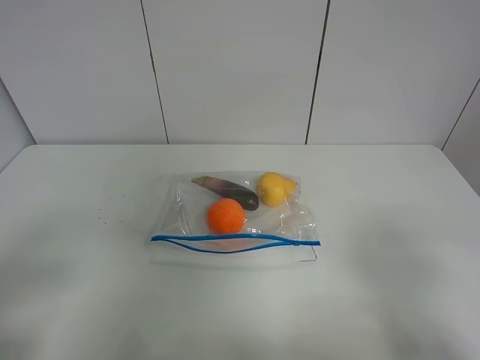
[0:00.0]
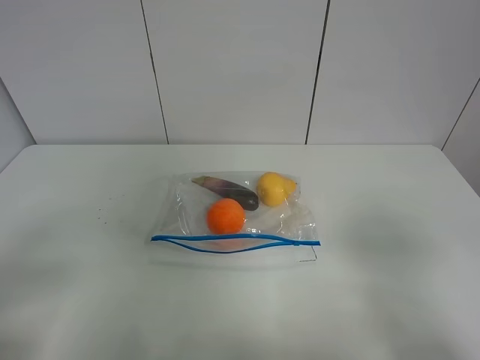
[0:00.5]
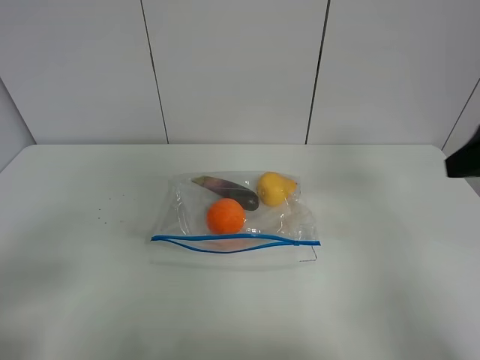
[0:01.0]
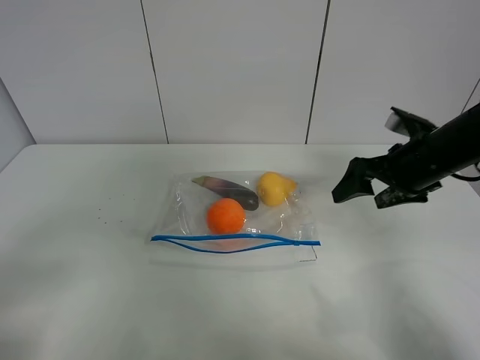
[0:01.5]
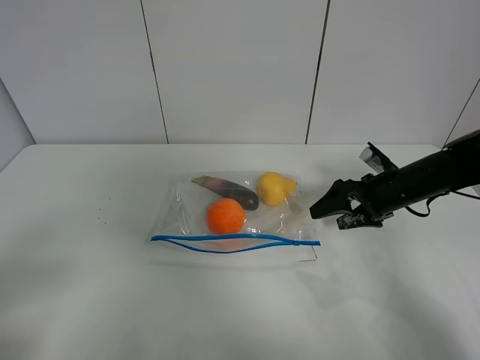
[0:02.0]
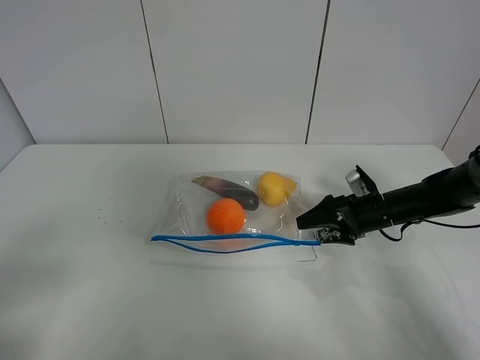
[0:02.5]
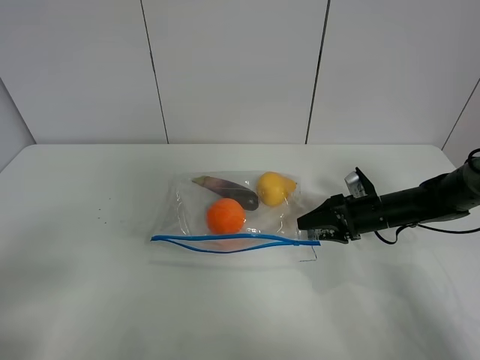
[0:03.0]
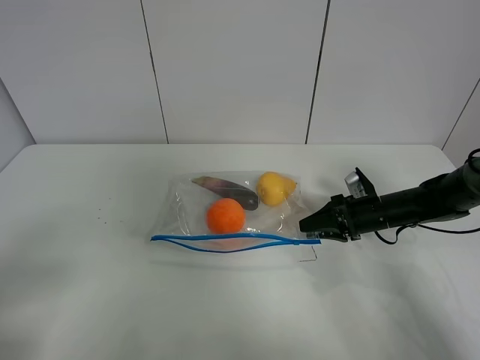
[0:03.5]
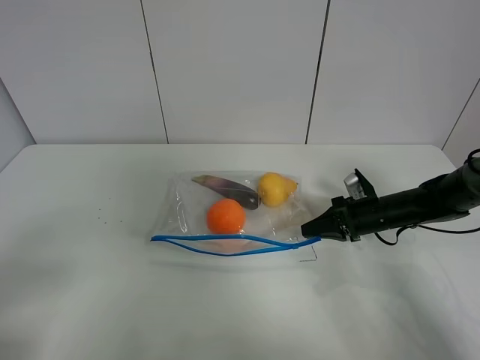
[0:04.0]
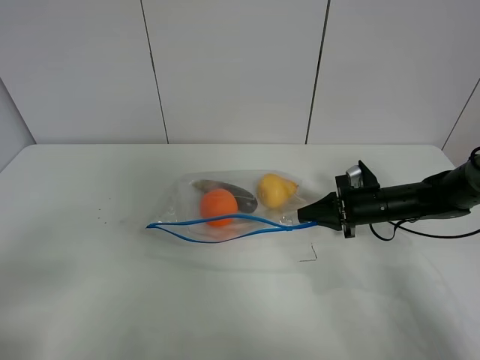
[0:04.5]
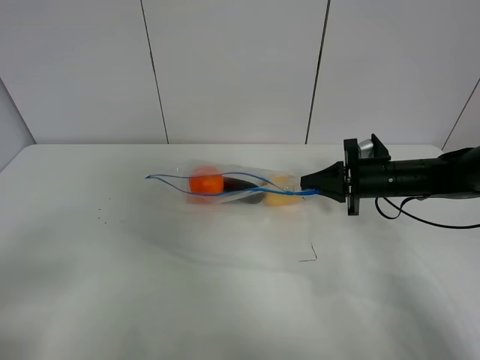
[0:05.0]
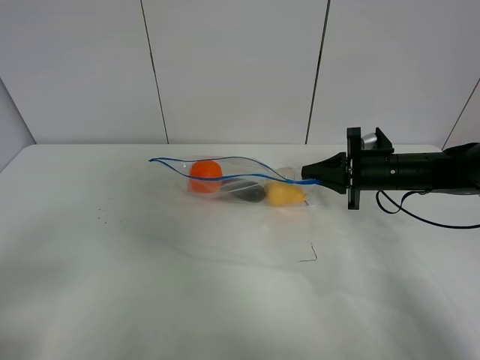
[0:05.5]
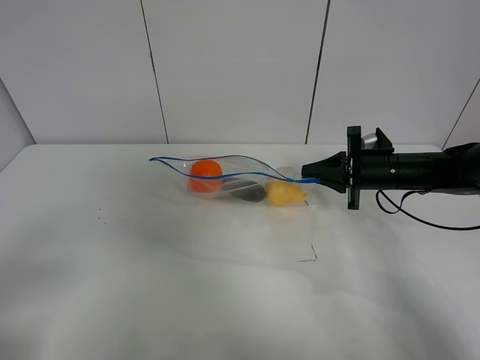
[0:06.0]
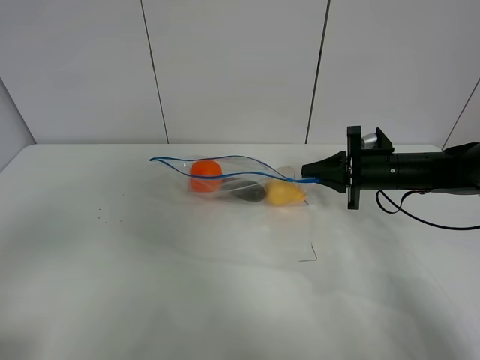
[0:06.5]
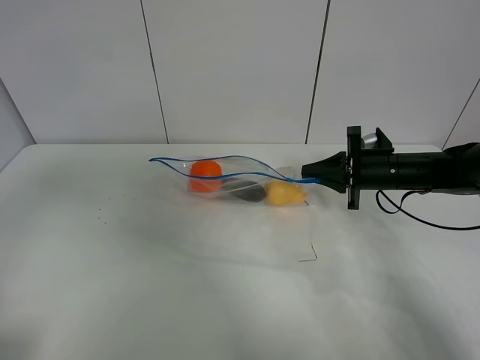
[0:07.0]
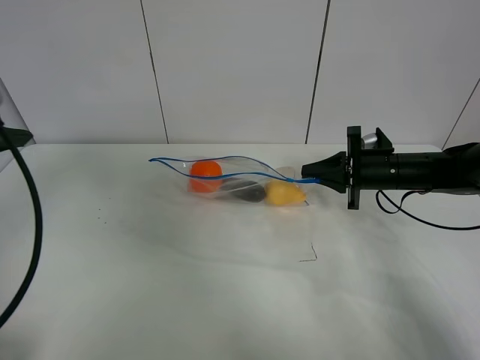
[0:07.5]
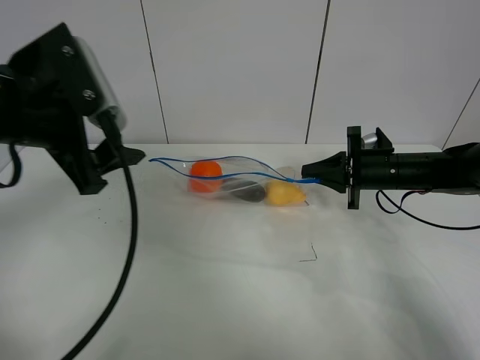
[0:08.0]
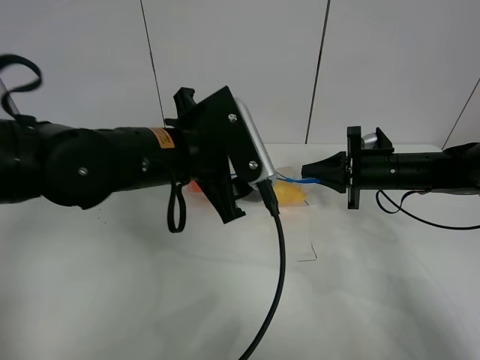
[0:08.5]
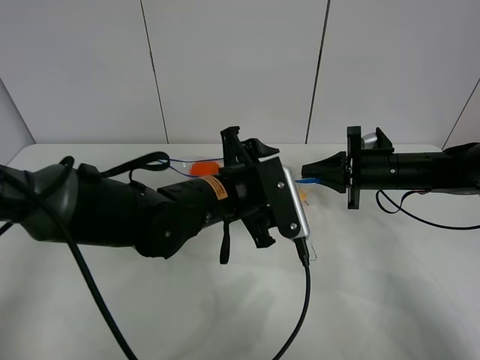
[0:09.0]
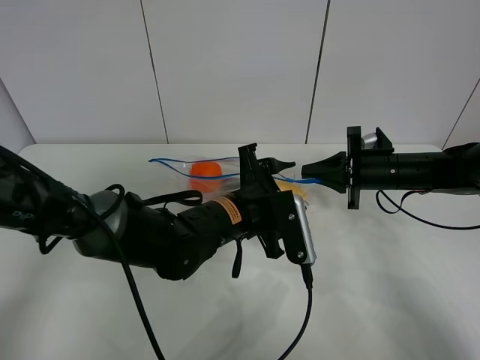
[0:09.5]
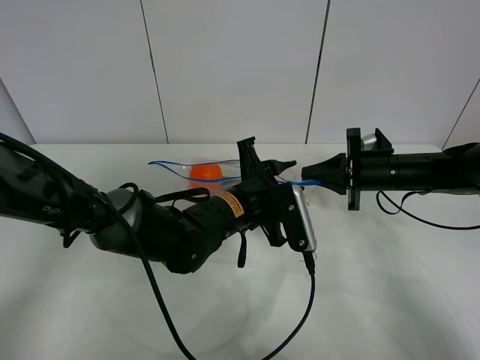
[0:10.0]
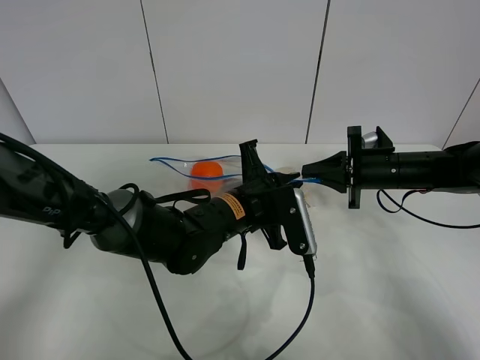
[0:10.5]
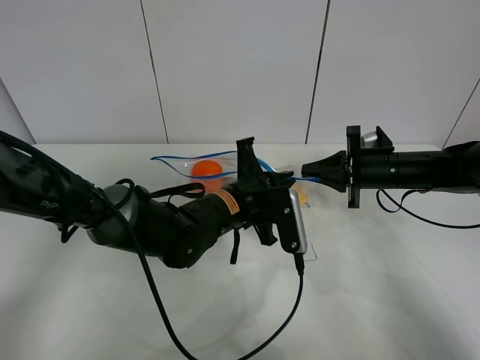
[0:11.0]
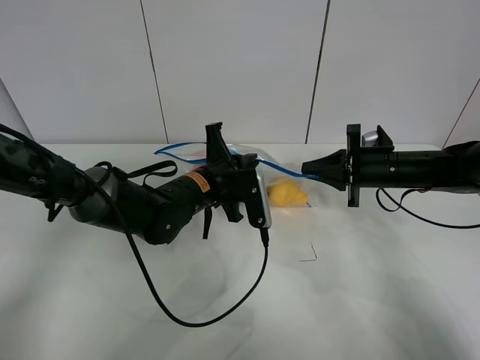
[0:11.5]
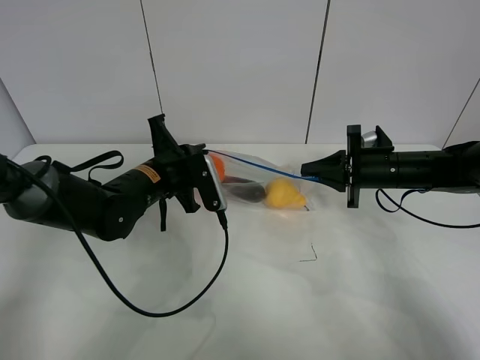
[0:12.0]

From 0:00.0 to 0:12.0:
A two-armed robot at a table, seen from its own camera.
Step, from 0:00.0 to 0:03.5: Grasp the fruit bag with right gripper.
Step, from 0:04.0 to 0:05.5: Lift the fruit bag with your right gripper.
From 0:00.0 to 0:02.0: The right gripper moves forward and downward, approximately 35 cm.
From 0:02.0 to 0:04.0: The right gripper goes some 5 cm downward, and closes.
From 0:04.0 to 0:06.0: The right gripper travels upward by approximately 10 cm.
From 0:06.0 to 0:08.0: The left gripper travels forward and to the right by approximately 25 cm.
From 0:08.0 to 0:10.0: The left gripper travels to the right and downward by about 25 cm, and closes.
From 0:10.0 to 0:12.0: The left gripper goes about 15 cm to the left, and closes its fingers.

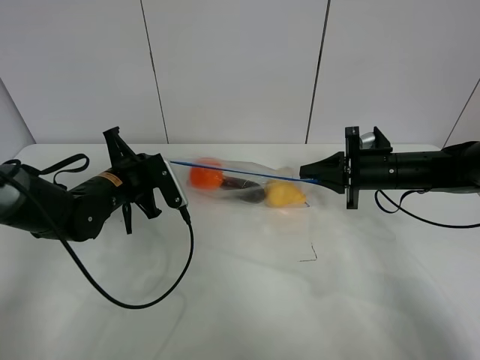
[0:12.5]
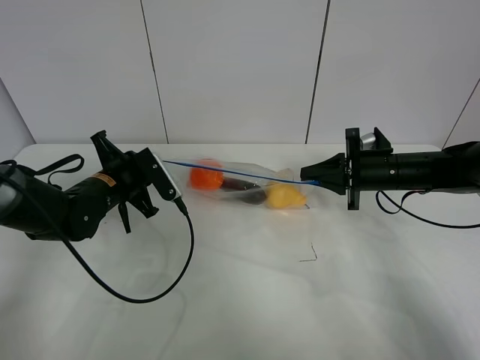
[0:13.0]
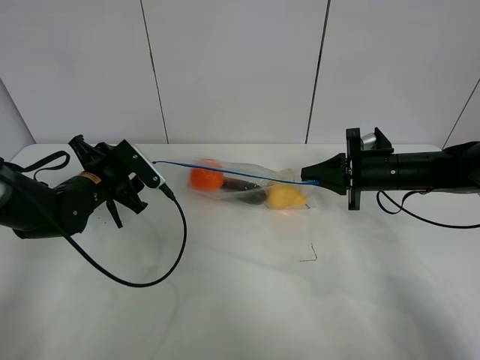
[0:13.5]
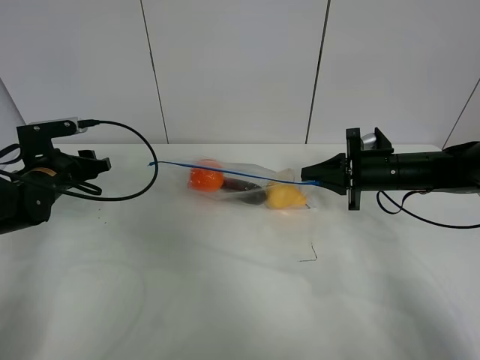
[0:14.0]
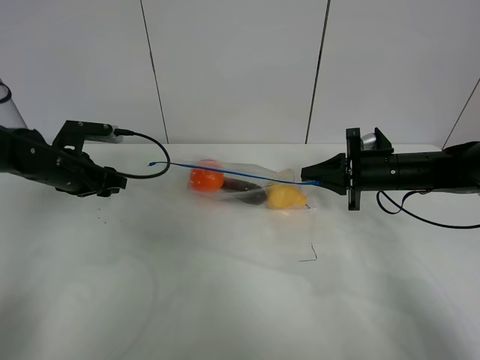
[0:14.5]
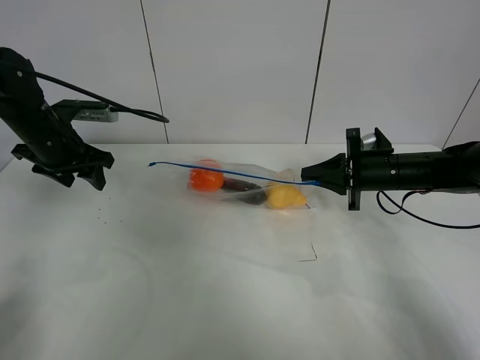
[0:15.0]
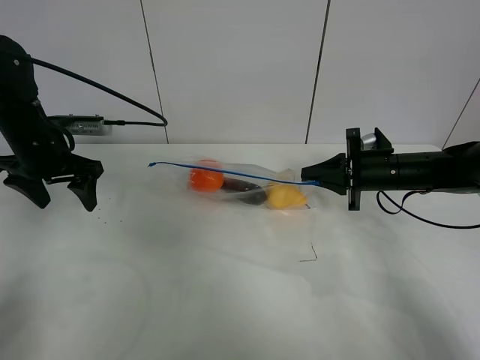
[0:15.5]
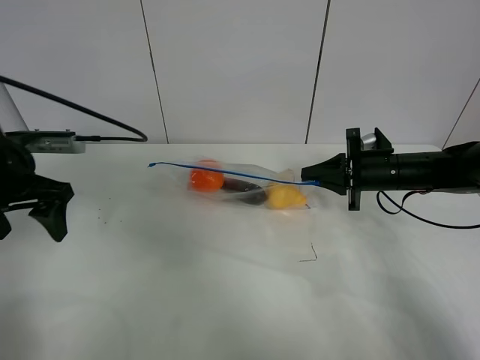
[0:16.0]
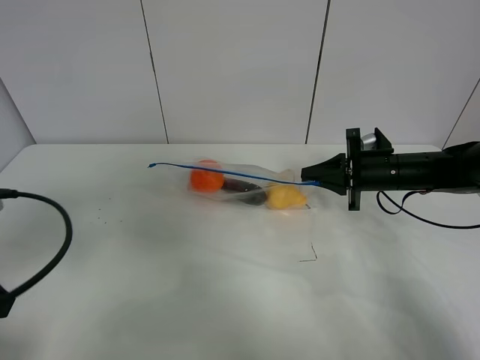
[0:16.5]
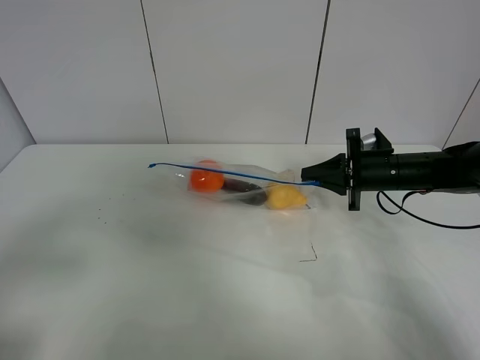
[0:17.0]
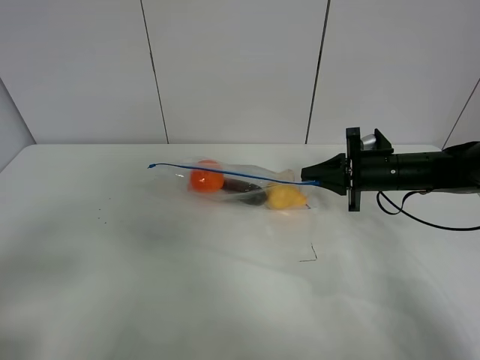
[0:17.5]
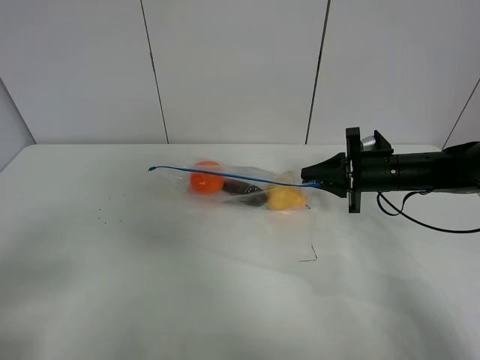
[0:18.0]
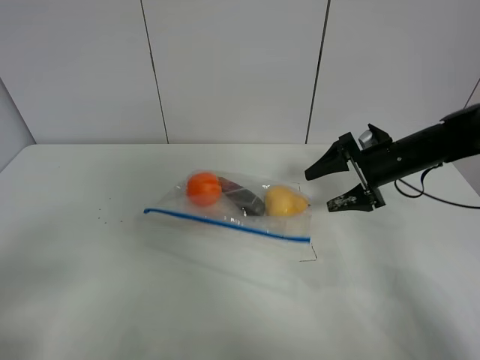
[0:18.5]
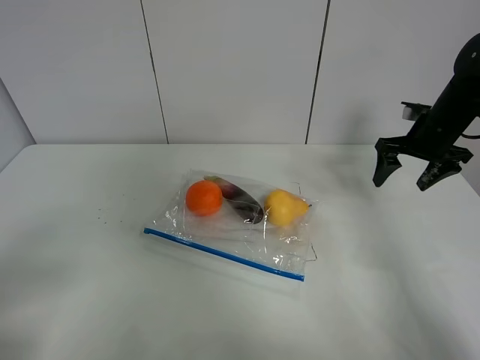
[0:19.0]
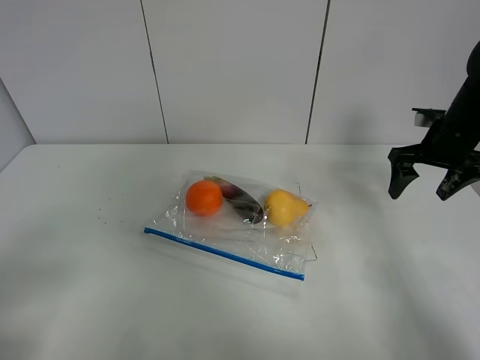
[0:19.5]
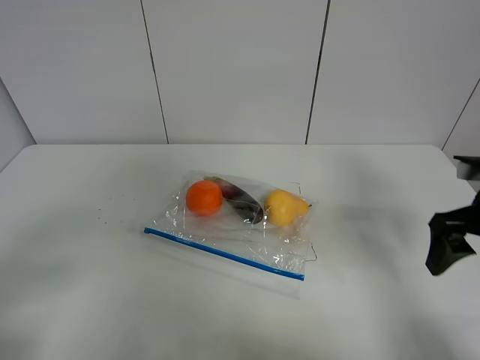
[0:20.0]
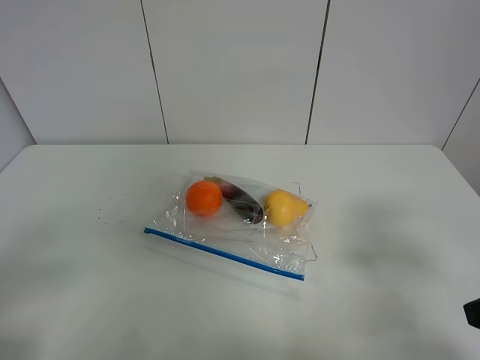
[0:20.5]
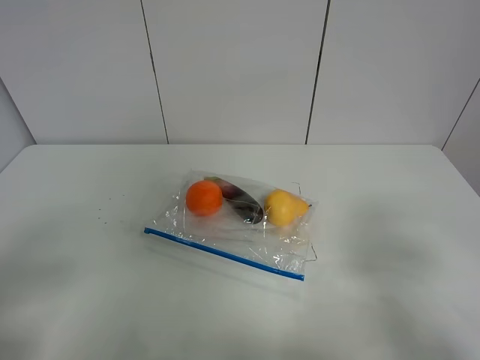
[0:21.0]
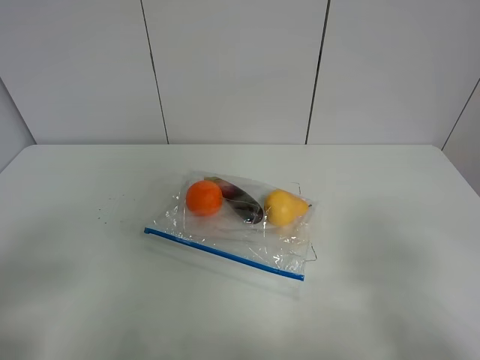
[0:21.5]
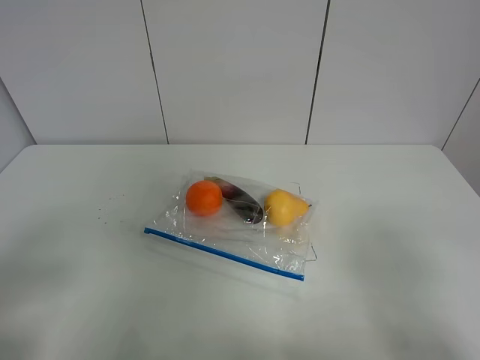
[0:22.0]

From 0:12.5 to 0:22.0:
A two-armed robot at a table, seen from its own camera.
From 0:12.5 to 0:14.5: The left gripper shifts about 10 cm to the left, and opens its fingers.
From 0:14.5 to 0:16.5: The left gripper is displaced backward and upward by some 25 cm.
From 0:16.5 to 0:18.0: The left gripper heads backward, covering approximately 10 cm.
From 0:18.0 to 0:20.0: The right gripper heads backward, upward and to the right, covering some 15 cm, and opens up.
From 0:20.0 to 0:22.0: The right gripper is displaced backward by some 25 cm.
